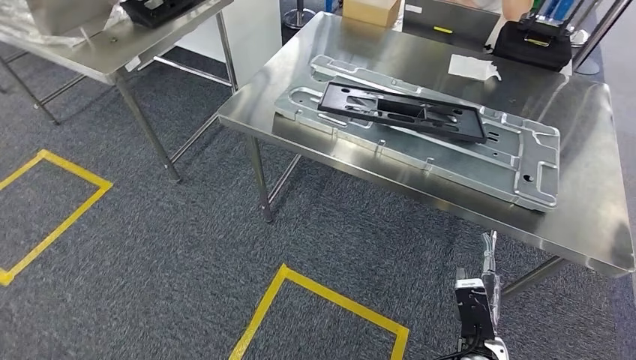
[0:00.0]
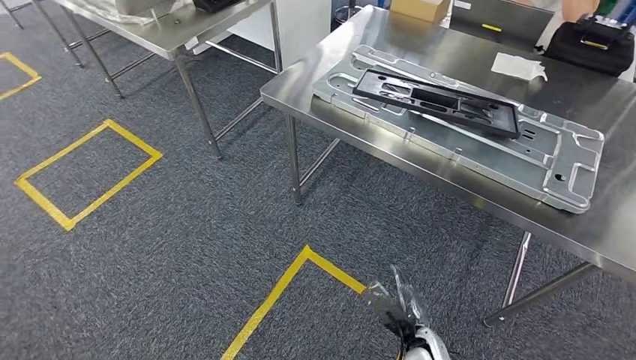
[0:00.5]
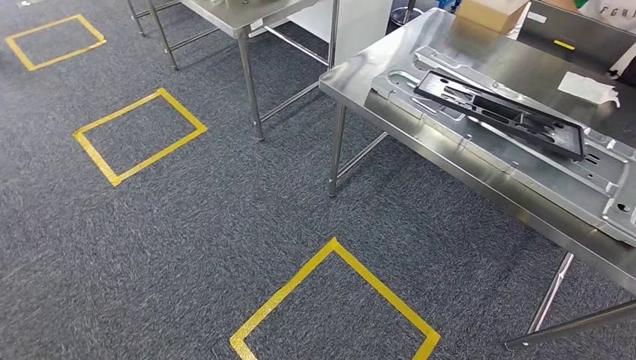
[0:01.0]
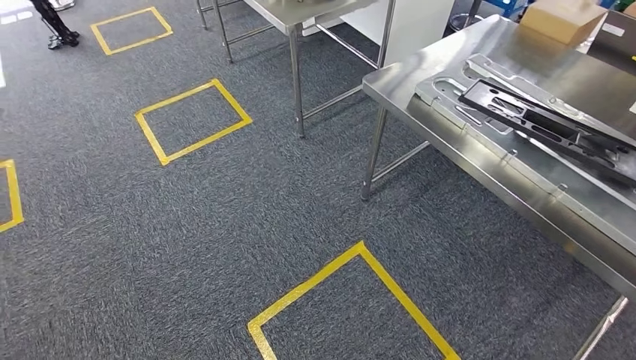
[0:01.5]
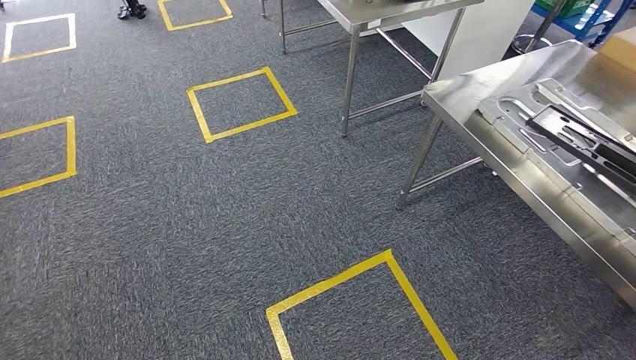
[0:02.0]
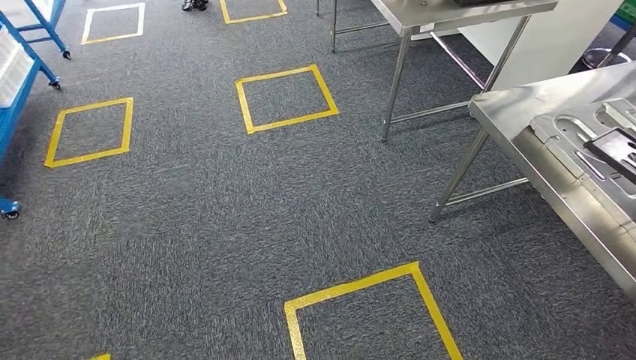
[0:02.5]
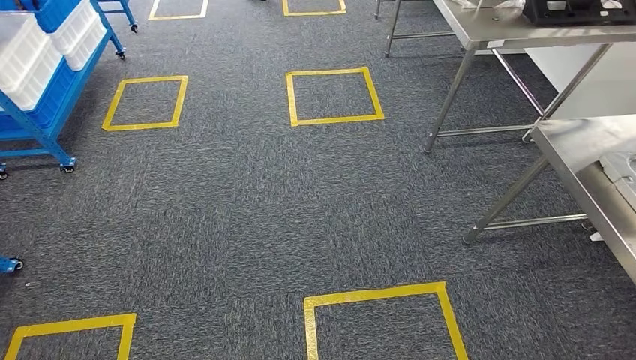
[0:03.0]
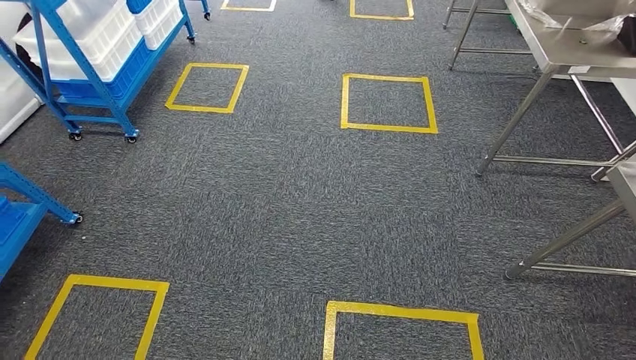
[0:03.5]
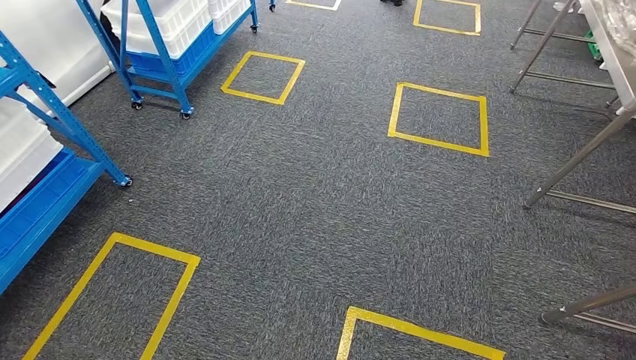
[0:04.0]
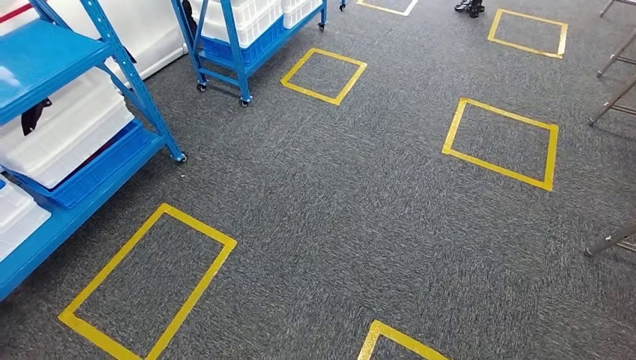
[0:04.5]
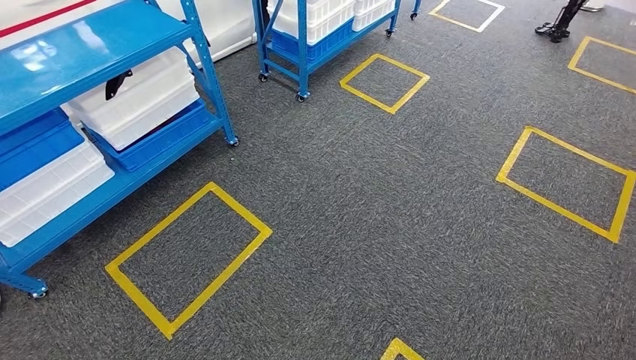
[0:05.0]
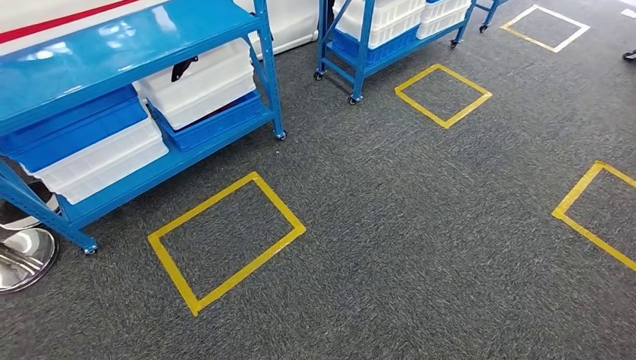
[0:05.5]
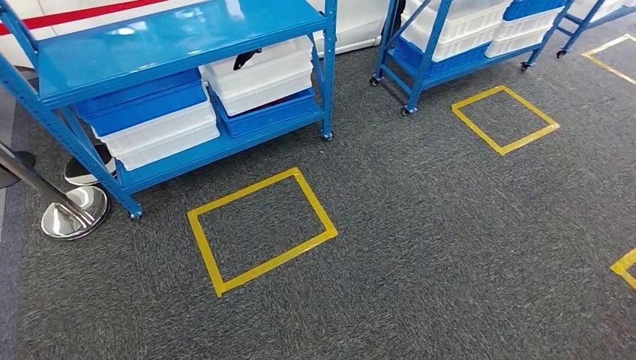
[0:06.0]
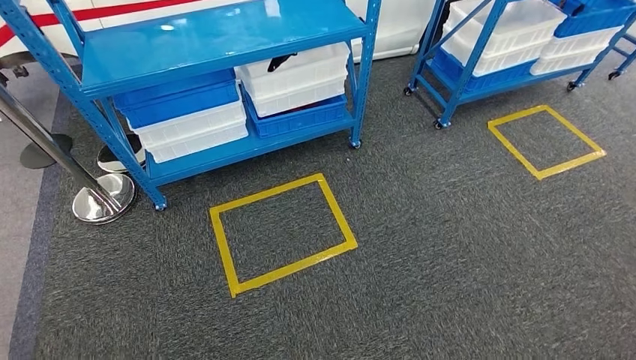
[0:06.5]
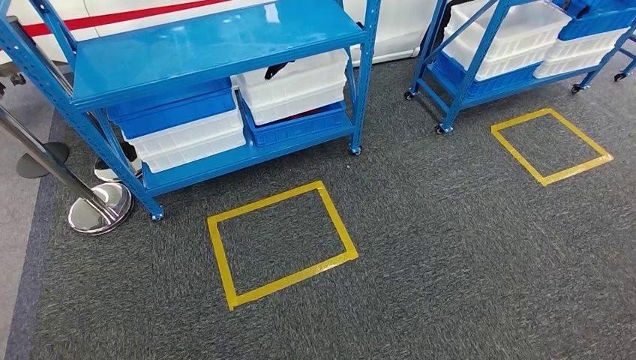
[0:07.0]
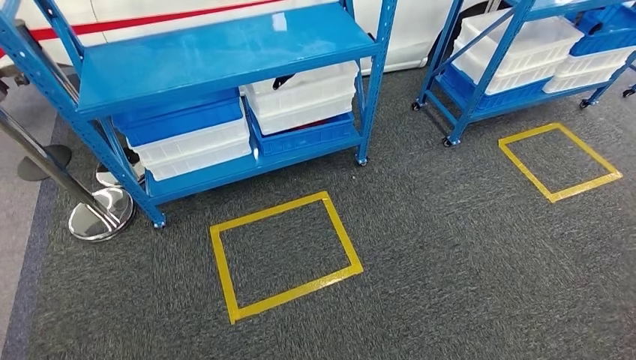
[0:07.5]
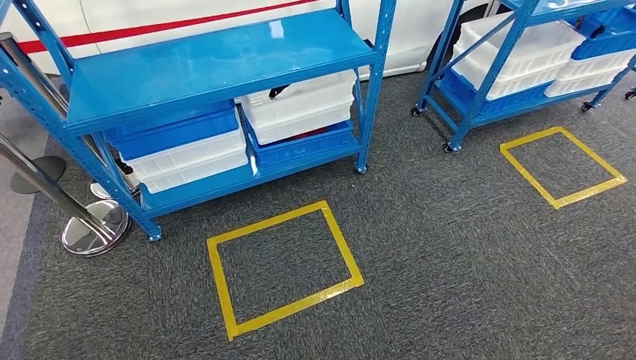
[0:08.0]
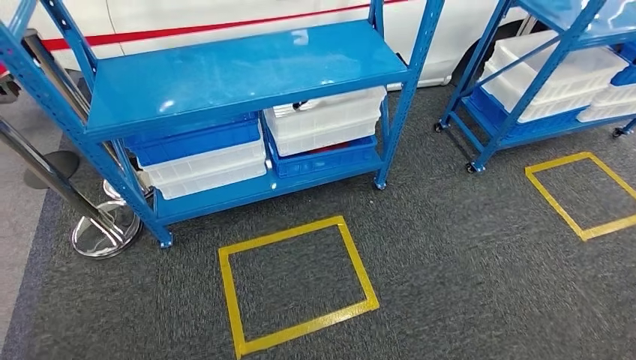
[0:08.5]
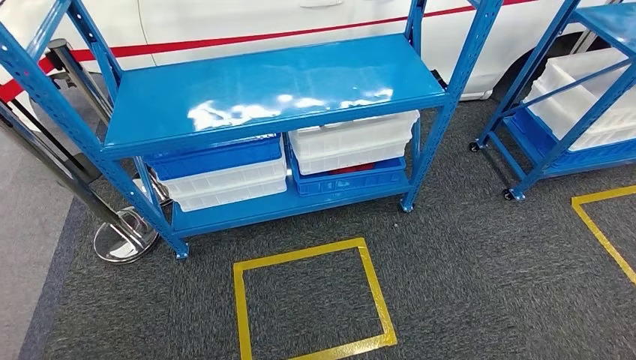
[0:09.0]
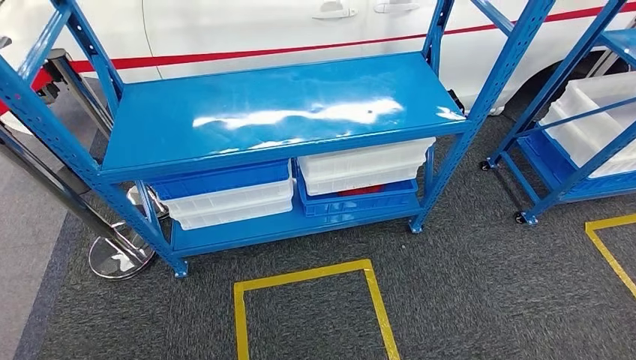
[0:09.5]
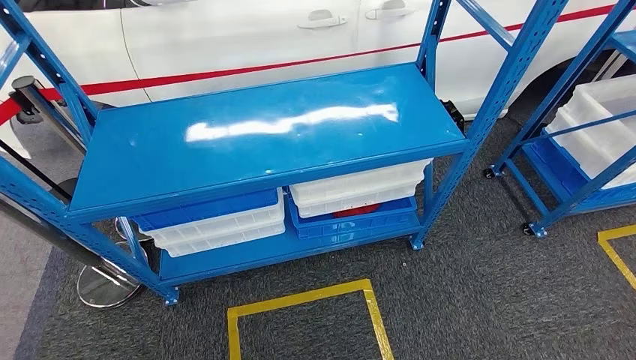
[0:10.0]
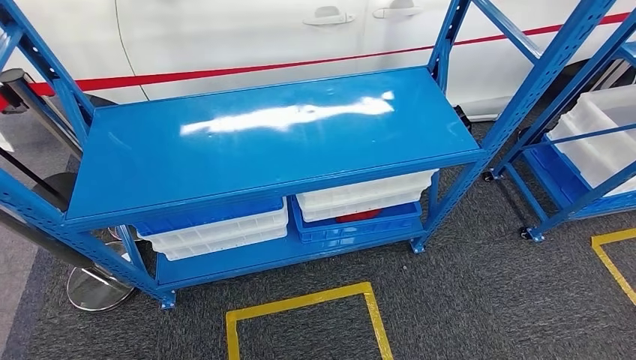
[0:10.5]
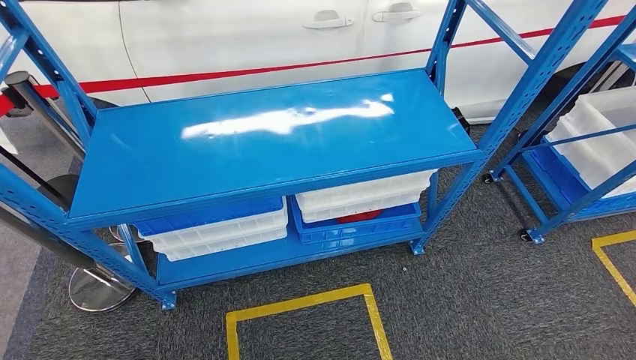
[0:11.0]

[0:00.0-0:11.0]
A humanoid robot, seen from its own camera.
Step, 0:01.0 to 0:11.0: Move to the initial position of the shelf.
